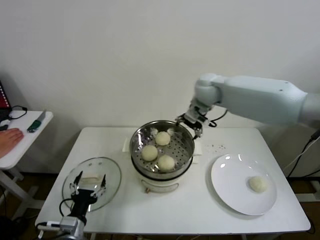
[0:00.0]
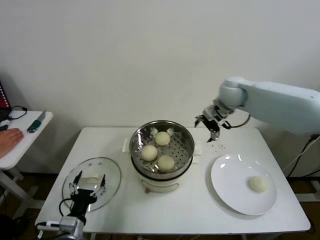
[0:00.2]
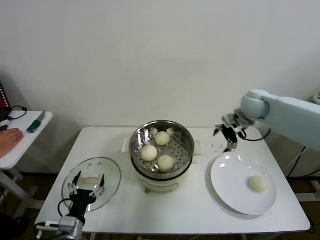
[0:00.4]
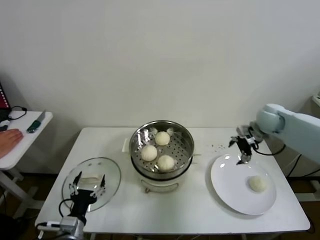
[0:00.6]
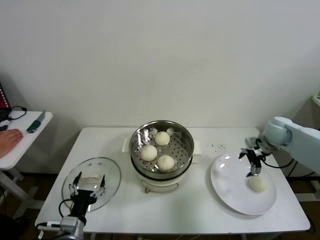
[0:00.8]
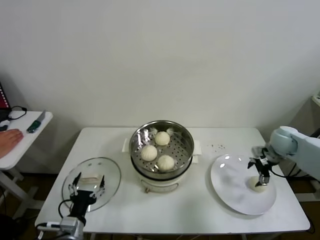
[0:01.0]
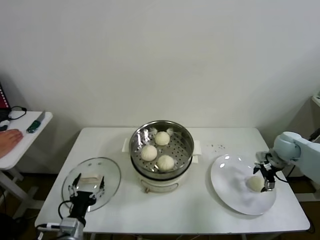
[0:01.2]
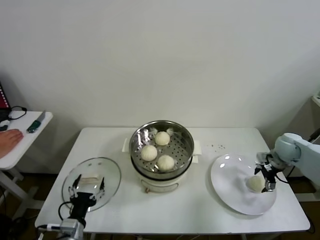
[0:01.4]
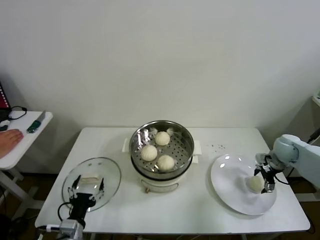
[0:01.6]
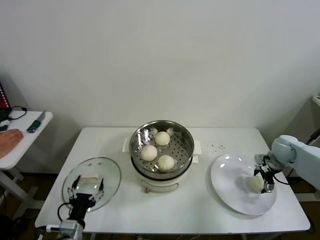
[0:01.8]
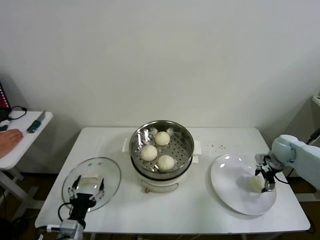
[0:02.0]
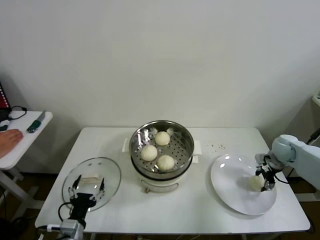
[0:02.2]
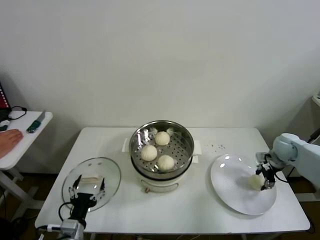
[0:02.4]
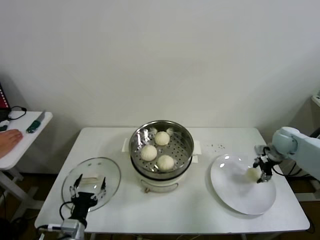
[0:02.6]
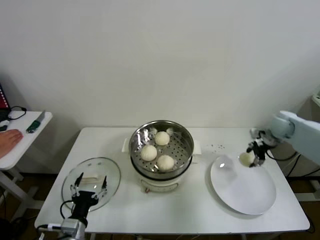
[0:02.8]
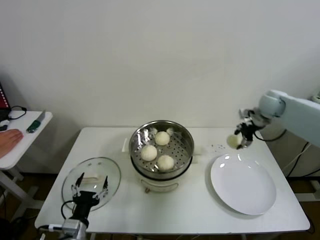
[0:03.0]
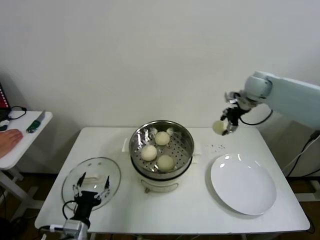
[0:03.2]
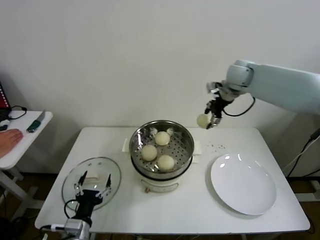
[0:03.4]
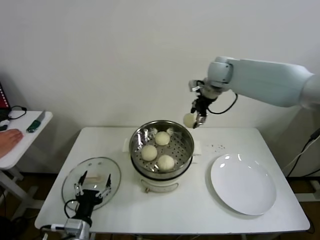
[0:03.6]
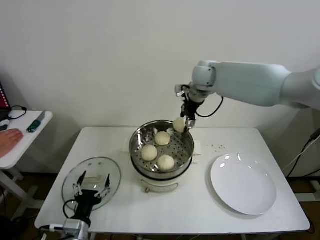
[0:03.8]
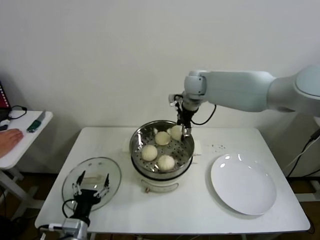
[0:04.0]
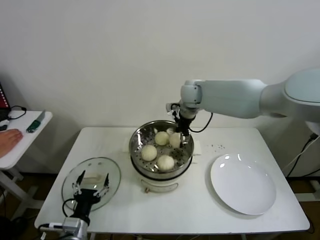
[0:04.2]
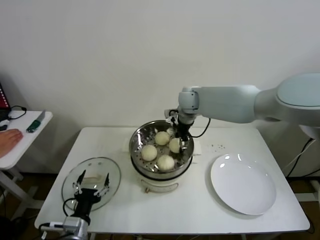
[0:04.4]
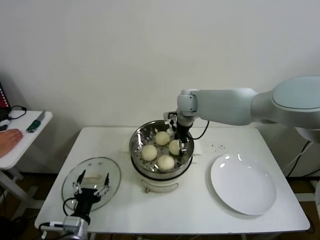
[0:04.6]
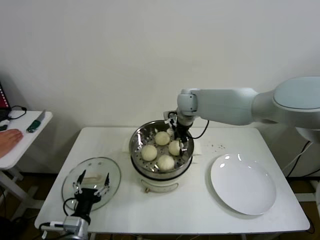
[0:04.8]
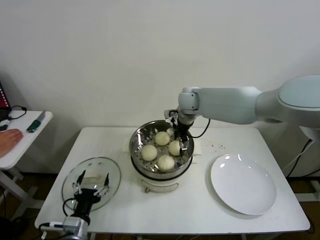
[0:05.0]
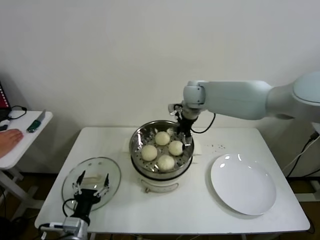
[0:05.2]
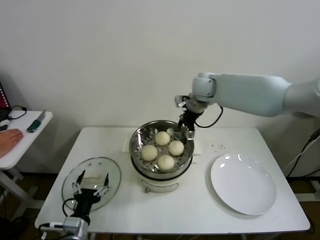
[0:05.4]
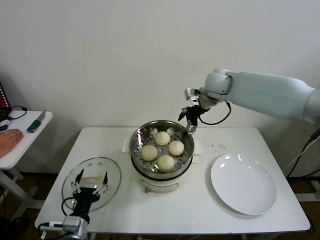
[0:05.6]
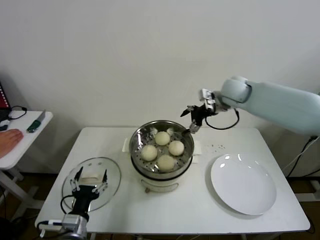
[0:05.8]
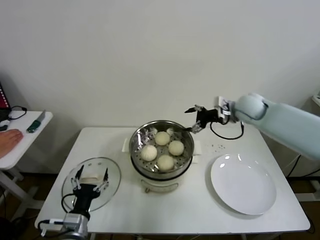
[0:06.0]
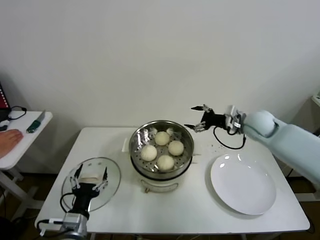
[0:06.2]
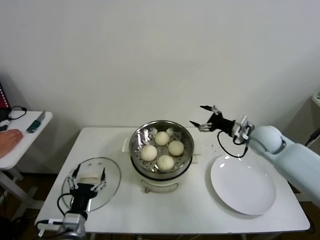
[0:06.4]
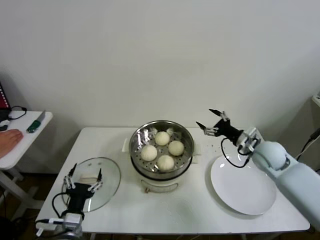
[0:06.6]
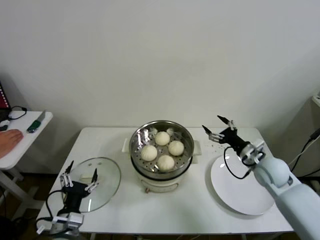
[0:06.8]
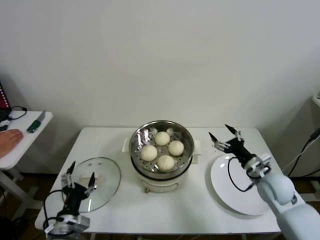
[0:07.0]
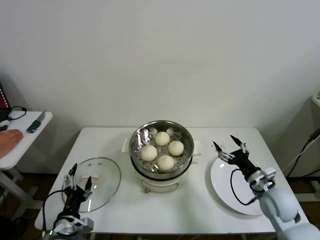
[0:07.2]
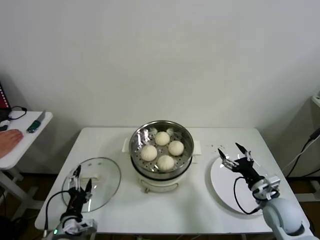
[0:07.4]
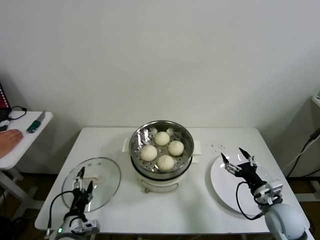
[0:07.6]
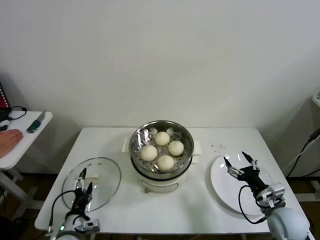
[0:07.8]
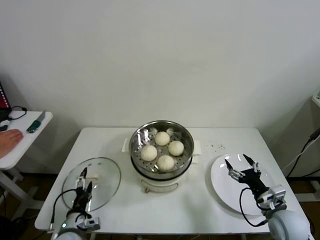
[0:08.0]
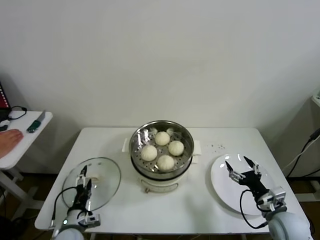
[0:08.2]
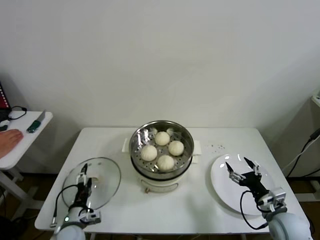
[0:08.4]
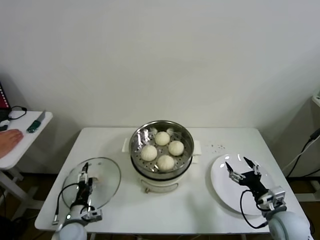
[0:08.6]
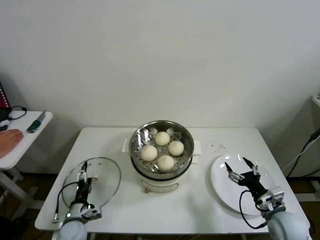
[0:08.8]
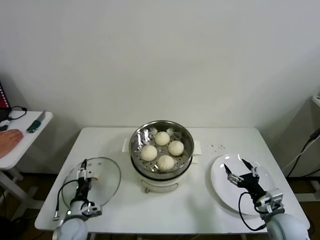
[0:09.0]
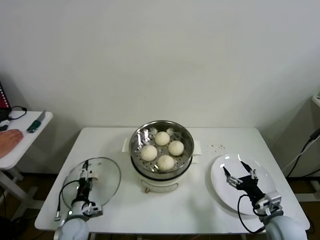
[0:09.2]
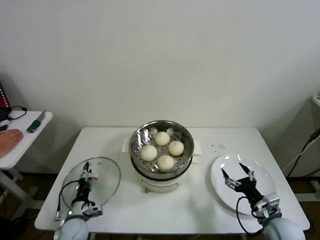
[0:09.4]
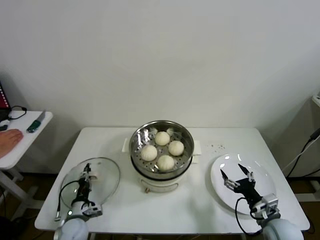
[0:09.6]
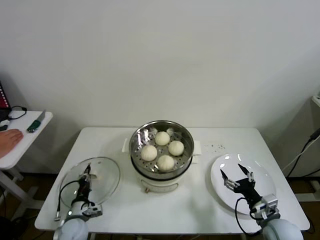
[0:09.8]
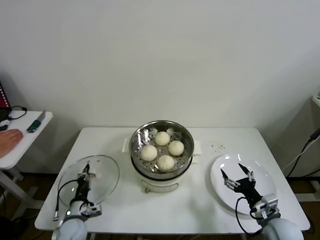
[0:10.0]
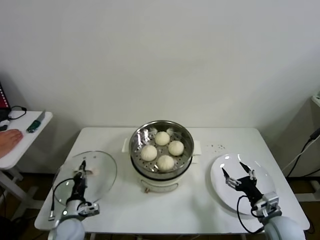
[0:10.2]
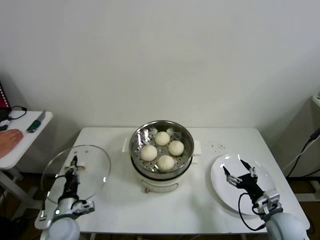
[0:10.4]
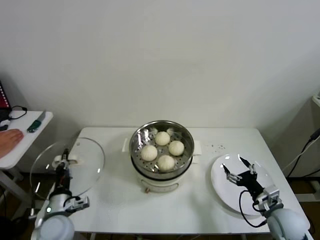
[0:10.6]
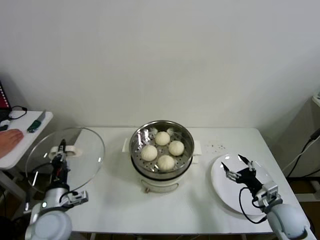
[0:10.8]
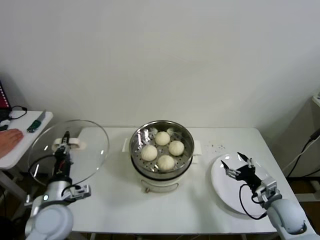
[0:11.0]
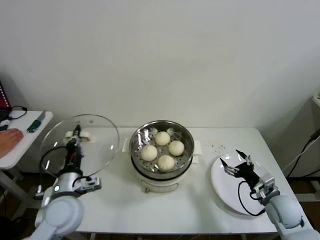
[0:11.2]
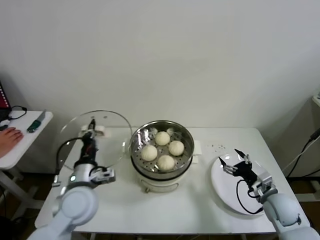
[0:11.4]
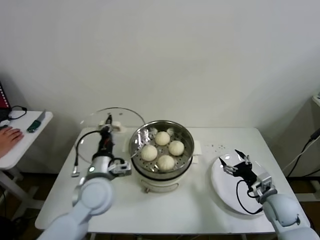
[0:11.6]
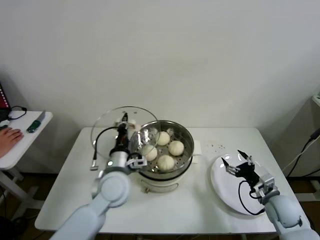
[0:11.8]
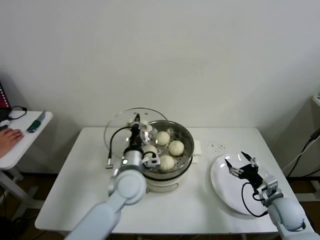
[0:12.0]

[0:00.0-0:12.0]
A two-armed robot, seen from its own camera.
Step, 0:00.0 to 0:02.0: Grasp the baozi in the plate with right gripper.
Step, 0:02.2 to 0:04.6: Place the baozi on the steamer with right gripper.
Step, 0:04.8 to 0:09.8: Grasp the pot lid with left gripper.
0:00.0 to 0:01.6: The right gripper shifts approximately 35 cm to the right and downward.
0:01.6 to 0:03.0: The right gripper heads upward, forward and to the left, covering some 20 cm, and closes.
0:03.0 to 0:04.4: The right gripper is displaced to the left by approximately 30 cm.
0:04.4 to 0:06.0: The right gripper travels to the right by about 20 cm, and opens up.
0:06.0 to 0:07.6: The right gripper goes roughly 35 cm backward and downward.
0:07.6 to 0:09.0: The left gripper goes some 10 cm downward and forward.
0:09.0 to 0:10.4: The left gripper is displaced upward by about 5 cm, and closes up.
0:10.4 to 0:12.0: The right gripper ends up about 5 cm from where it was. The left gripper heads to the right, upward and forward, covering roughly 30 cm.

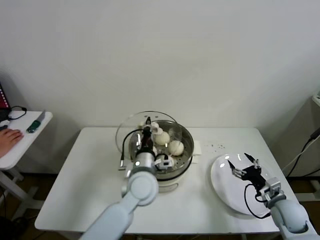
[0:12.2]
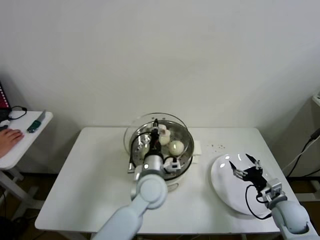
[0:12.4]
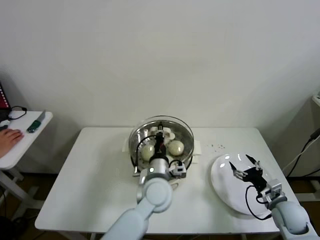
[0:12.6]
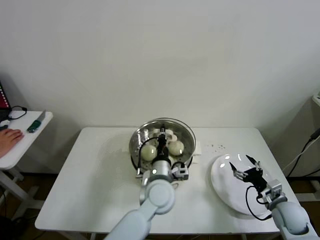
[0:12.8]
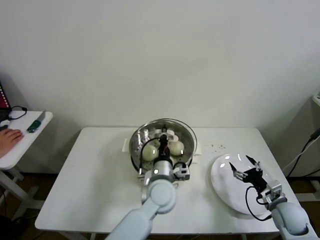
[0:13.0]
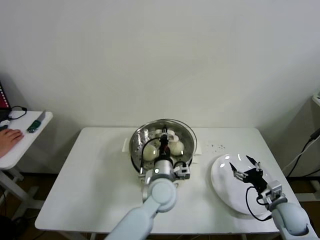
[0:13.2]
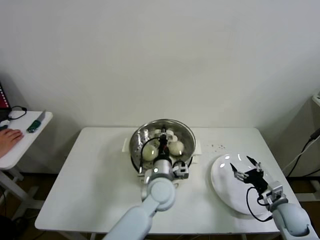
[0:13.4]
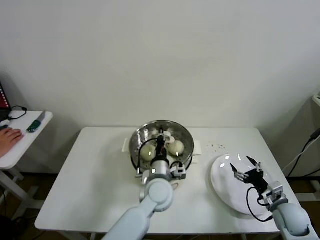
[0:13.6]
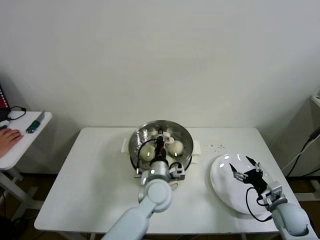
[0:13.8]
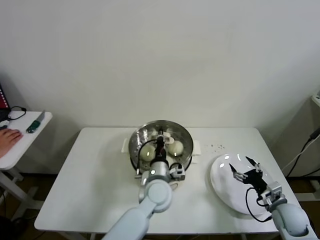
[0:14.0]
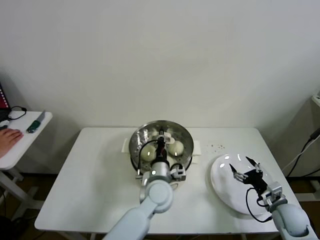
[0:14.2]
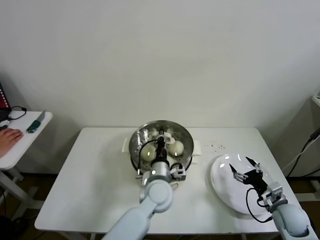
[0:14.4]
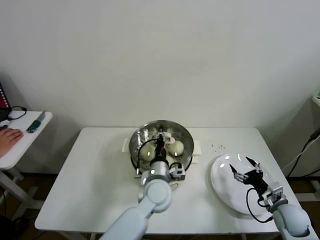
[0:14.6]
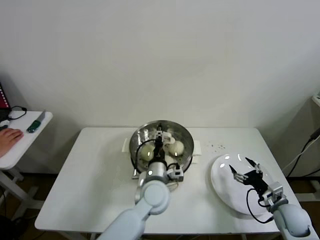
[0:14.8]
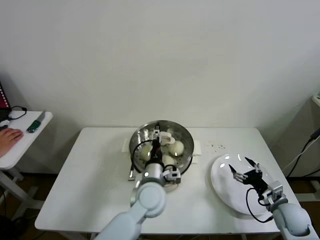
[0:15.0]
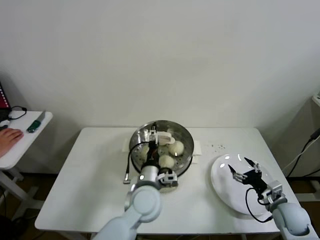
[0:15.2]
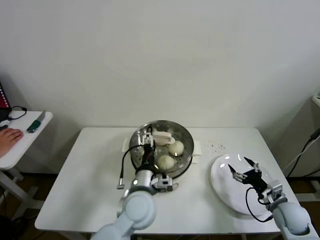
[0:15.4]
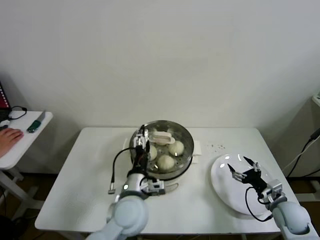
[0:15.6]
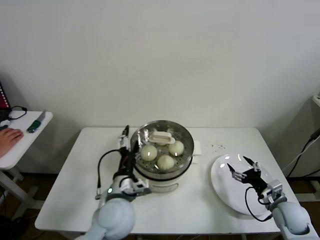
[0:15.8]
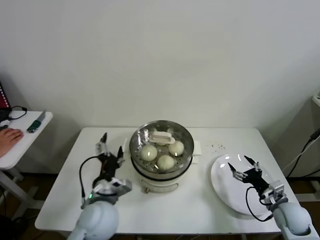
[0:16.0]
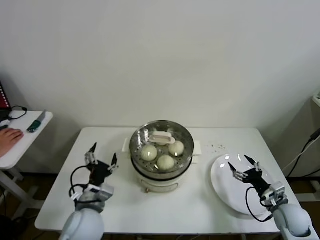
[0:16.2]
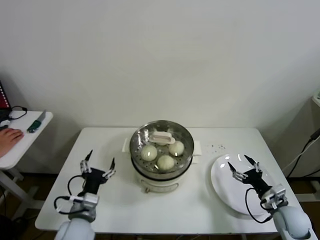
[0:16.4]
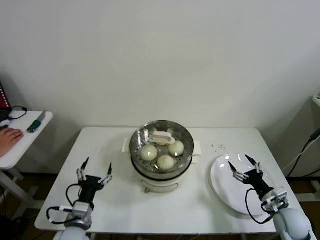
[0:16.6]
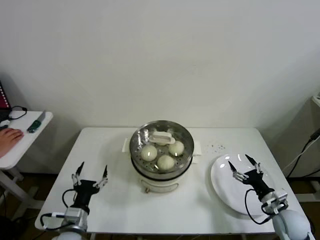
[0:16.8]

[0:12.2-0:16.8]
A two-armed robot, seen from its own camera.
Step, 0:12.2 to 0:14.6: Place the pot lid on the steamer with left gripper.
0:12.2 to 0:13.8: The left gripper heads to the right and downward, covering approximately 5 cm.
0:13.8 to 0:15.2: The left gripper opens up.
0:15.2 to 0:16.8: The left gripper goes about 25 cm to the left and backward.

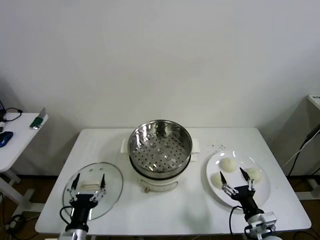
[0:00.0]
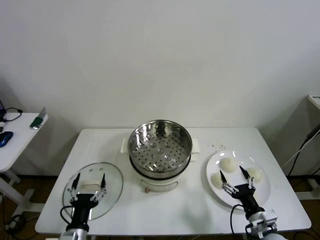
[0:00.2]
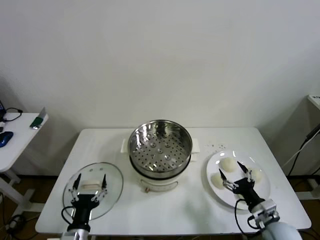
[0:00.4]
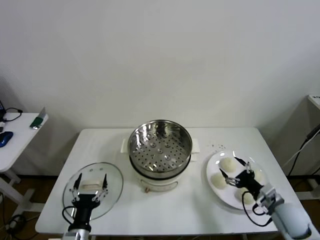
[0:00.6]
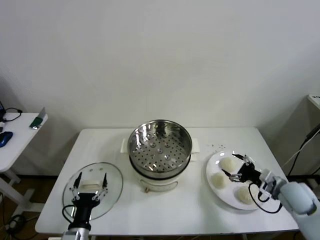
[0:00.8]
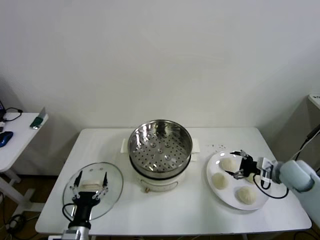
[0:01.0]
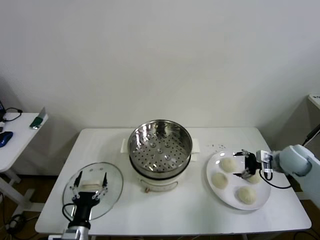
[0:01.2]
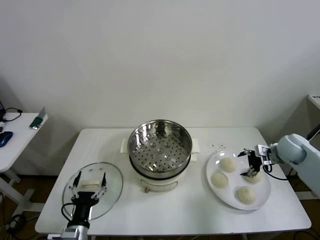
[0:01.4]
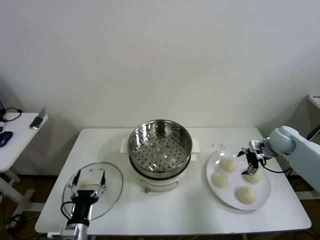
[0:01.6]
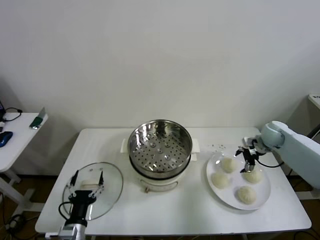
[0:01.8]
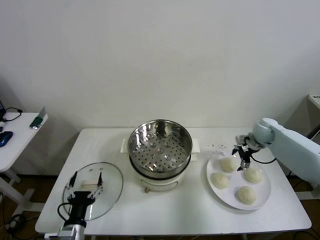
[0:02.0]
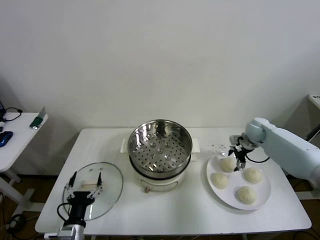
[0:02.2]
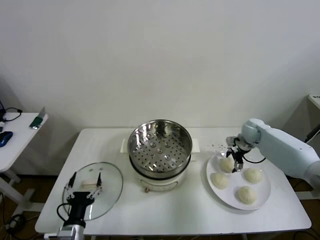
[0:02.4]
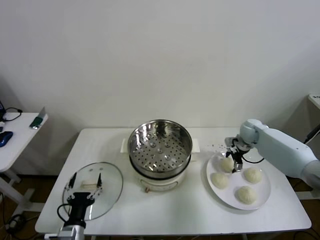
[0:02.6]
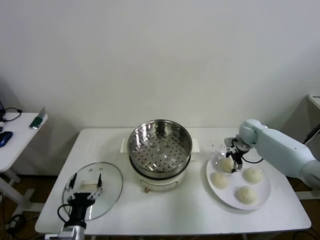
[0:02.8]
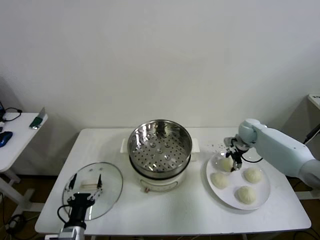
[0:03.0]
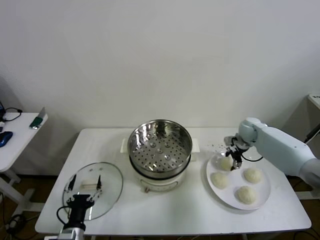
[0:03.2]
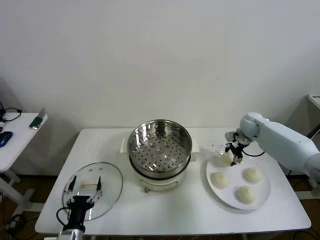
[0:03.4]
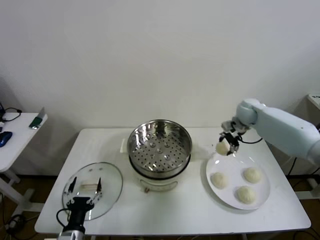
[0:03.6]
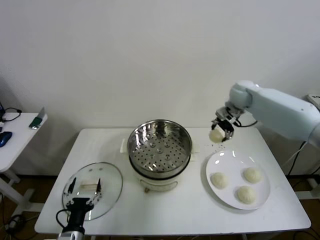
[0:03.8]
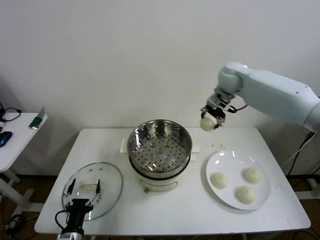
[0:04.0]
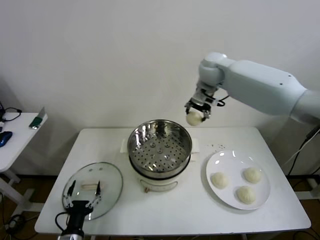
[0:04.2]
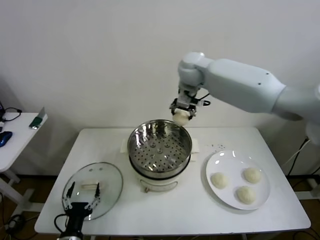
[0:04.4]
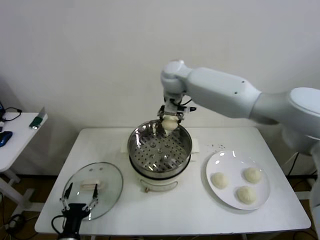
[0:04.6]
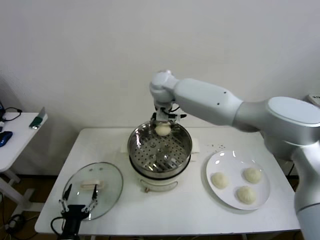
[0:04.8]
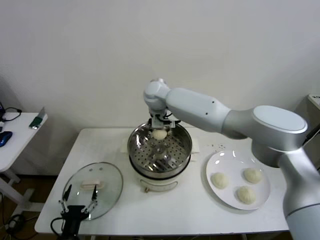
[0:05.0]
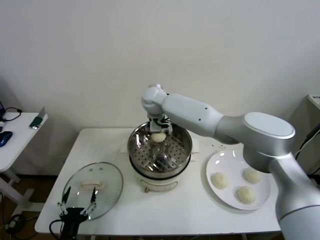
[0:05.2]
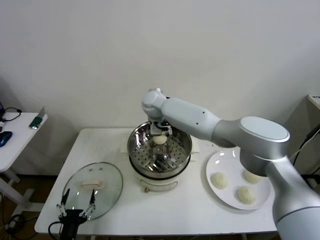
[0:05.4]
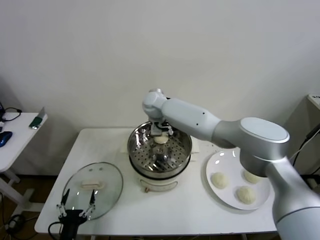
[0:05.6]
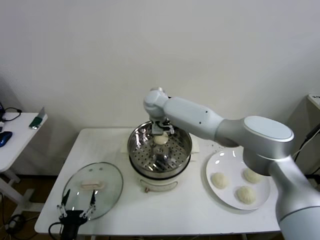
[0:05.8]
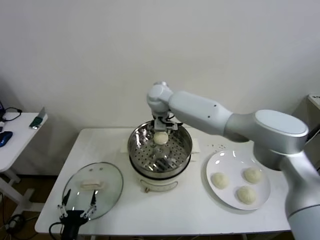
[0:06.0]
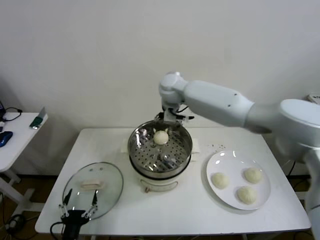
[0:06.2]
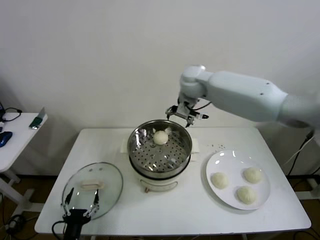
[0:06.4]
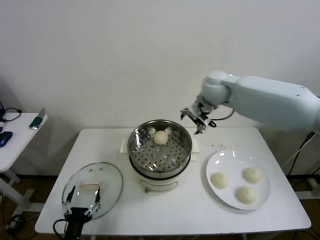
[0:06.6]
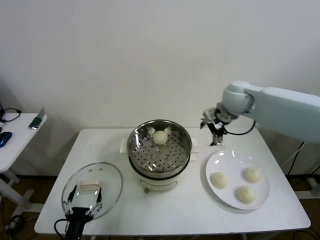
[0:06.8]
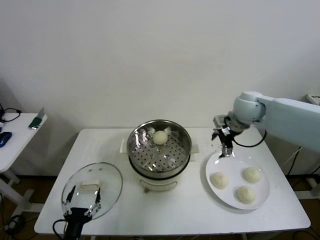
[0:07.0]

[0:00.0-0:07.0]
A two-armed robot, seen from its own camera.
Step, 0:00.0 to 0:03.0: Grasp the baozi in the plate with right gripper.
Step, 0:03.2 to 0:06.2: Place the baozi on the steamer with right gripper.
0:01.4 to 0:02.8: The right gripper moves forward and to the left, approximately 15 cm, and closes up.
0:02.8 to 0:04.2: The right gripper goes roughly 35 cm upward and to the left.
0:04.2 to 0:05.6: The right gripper moves to the left and downward, about 20 cm, and opens its fingers.
0:05.6 to 0:07.0: The right gripper goes roughly 30 cm to the right.
